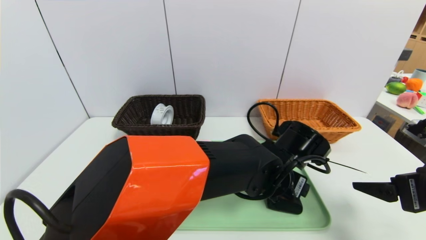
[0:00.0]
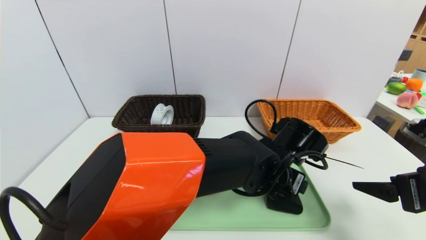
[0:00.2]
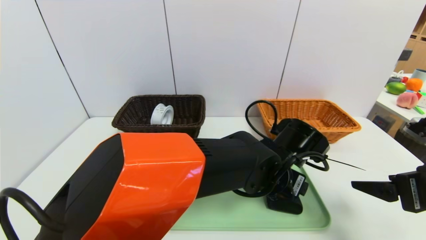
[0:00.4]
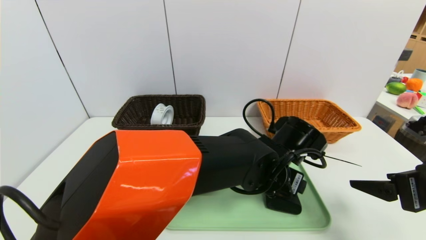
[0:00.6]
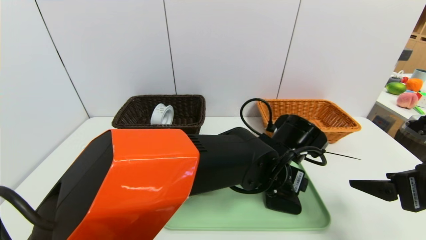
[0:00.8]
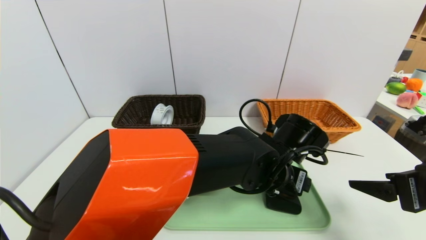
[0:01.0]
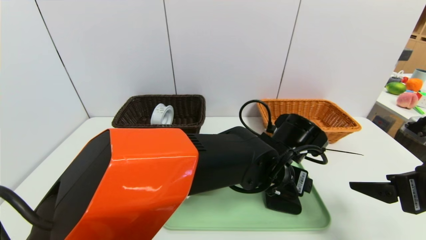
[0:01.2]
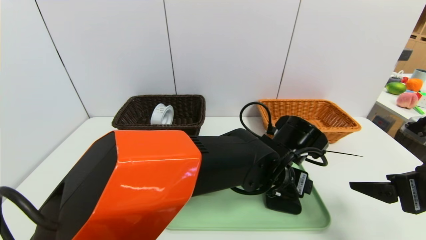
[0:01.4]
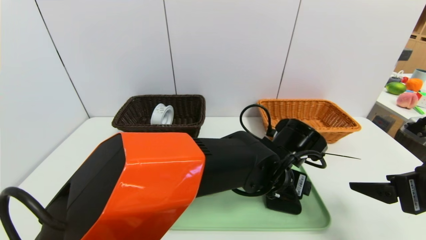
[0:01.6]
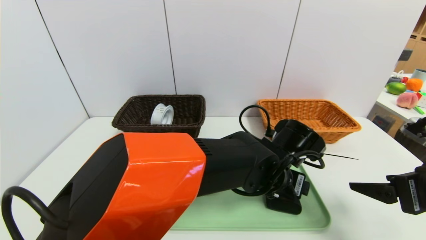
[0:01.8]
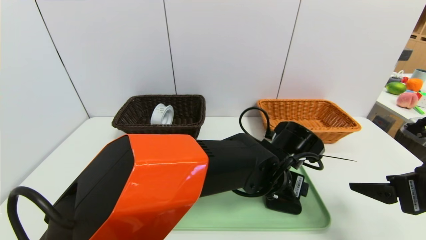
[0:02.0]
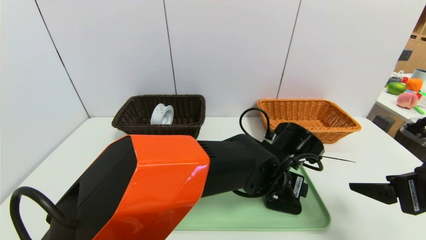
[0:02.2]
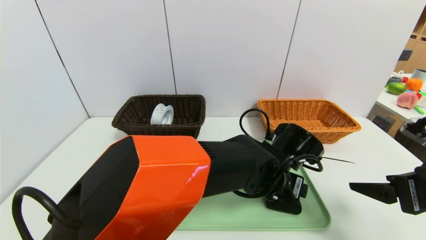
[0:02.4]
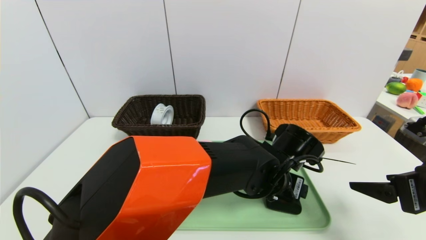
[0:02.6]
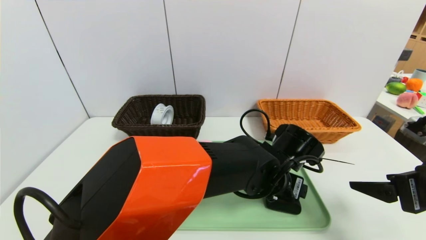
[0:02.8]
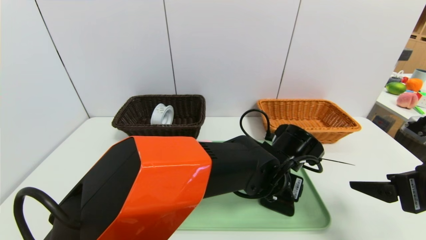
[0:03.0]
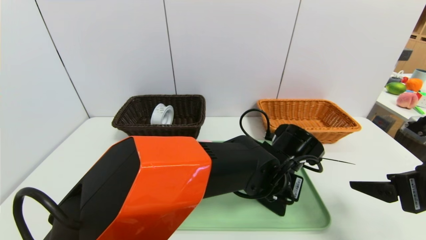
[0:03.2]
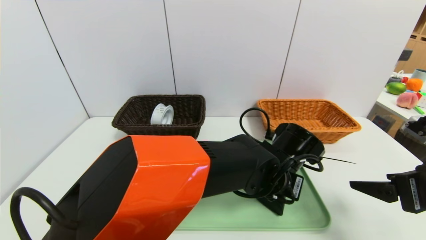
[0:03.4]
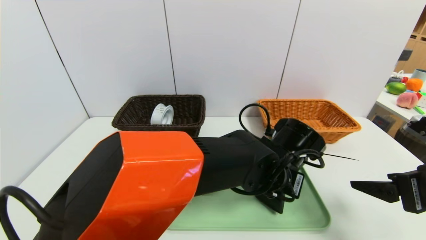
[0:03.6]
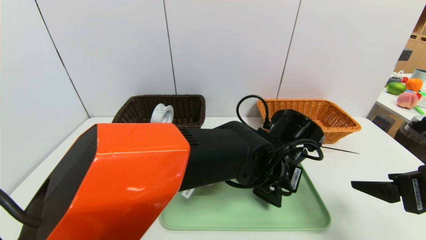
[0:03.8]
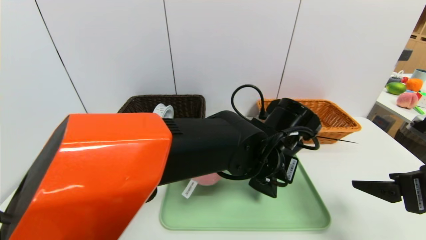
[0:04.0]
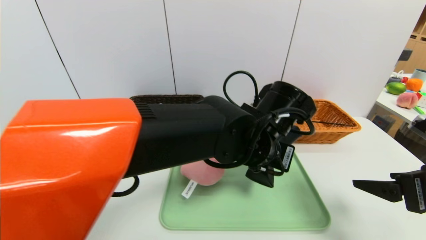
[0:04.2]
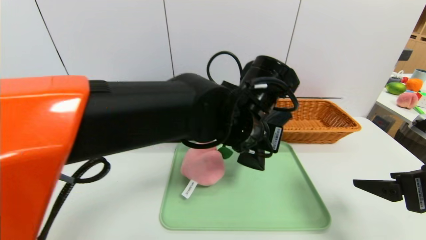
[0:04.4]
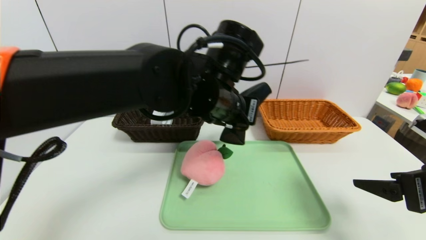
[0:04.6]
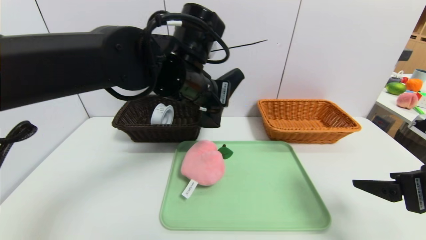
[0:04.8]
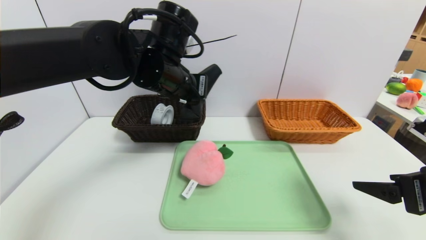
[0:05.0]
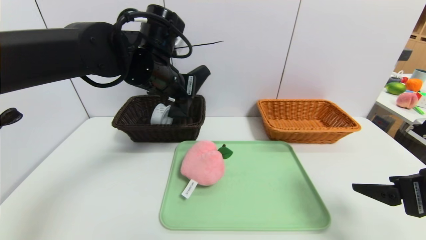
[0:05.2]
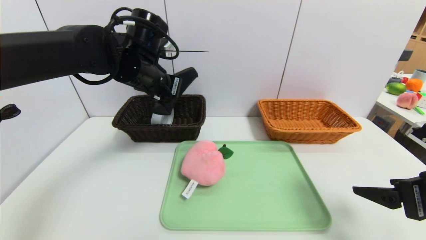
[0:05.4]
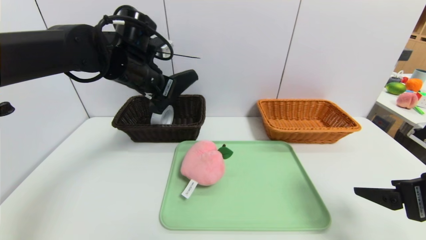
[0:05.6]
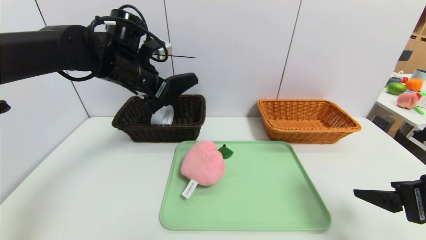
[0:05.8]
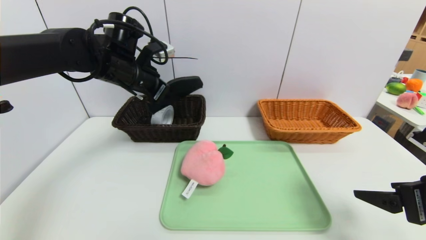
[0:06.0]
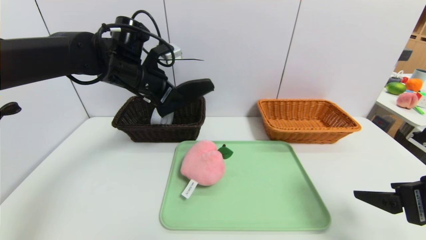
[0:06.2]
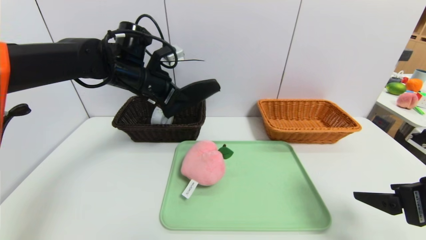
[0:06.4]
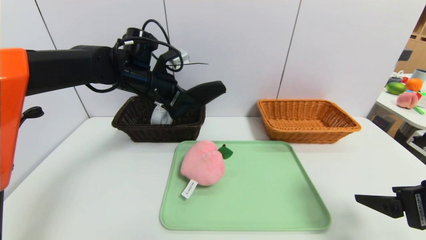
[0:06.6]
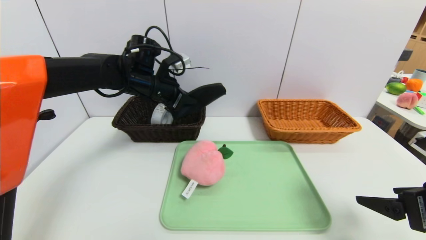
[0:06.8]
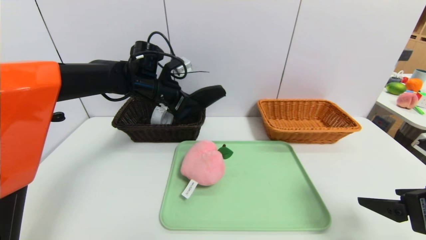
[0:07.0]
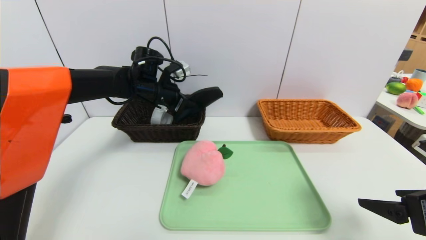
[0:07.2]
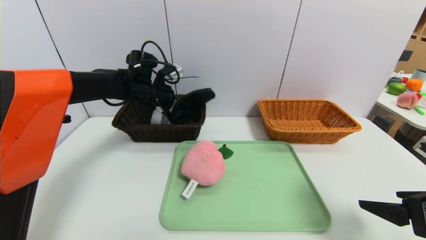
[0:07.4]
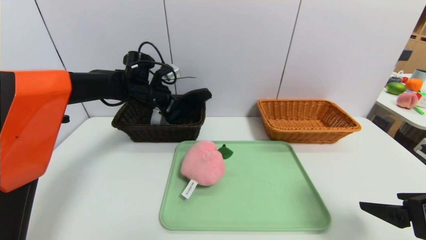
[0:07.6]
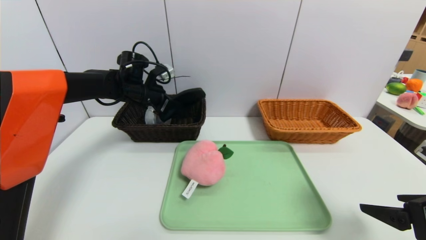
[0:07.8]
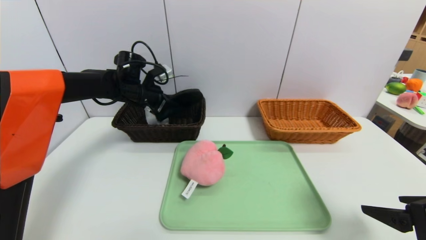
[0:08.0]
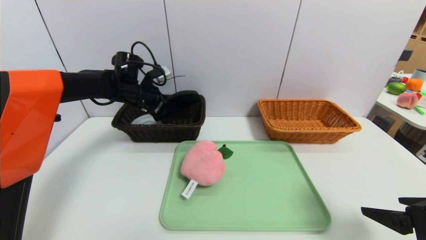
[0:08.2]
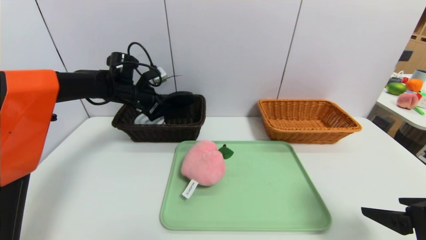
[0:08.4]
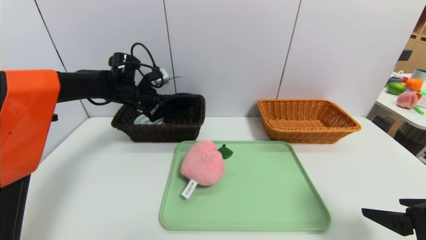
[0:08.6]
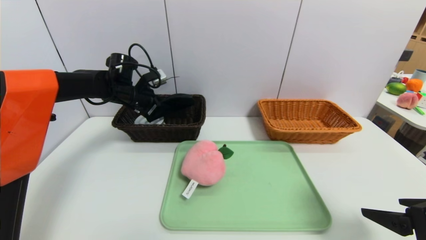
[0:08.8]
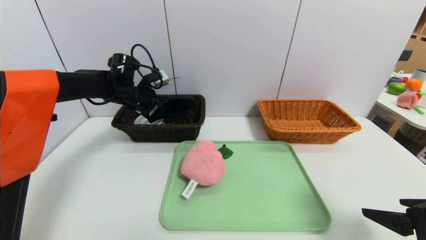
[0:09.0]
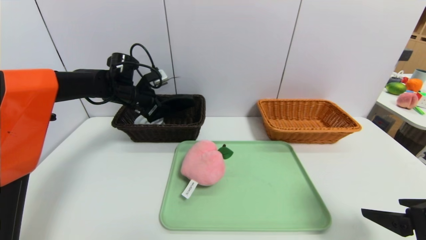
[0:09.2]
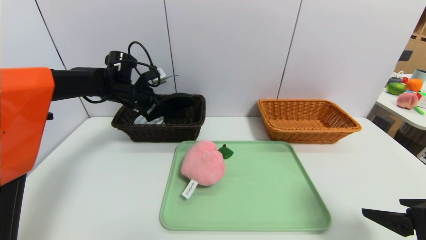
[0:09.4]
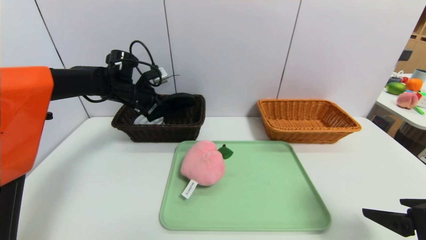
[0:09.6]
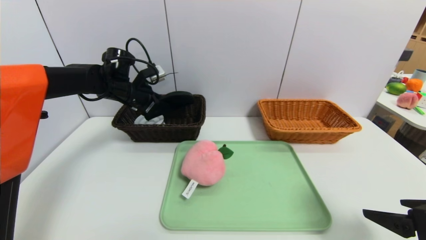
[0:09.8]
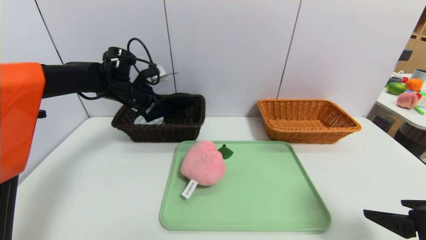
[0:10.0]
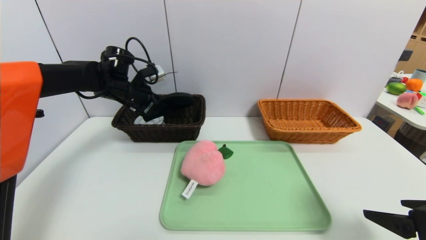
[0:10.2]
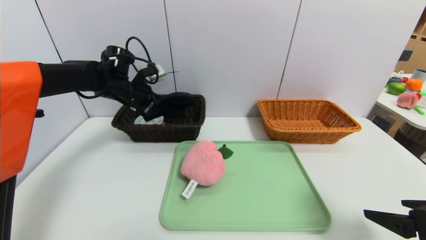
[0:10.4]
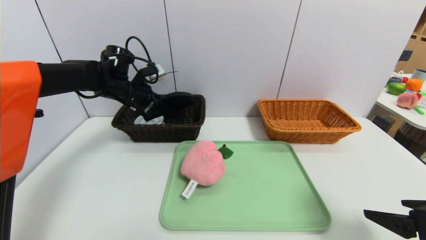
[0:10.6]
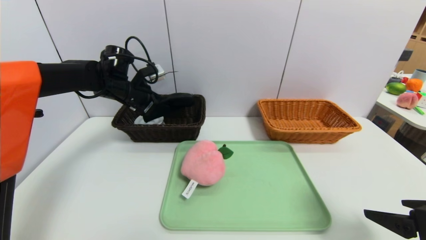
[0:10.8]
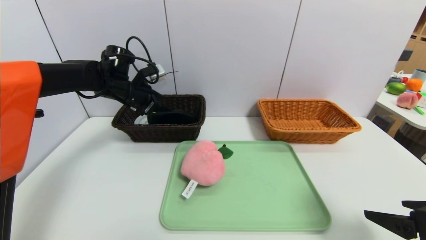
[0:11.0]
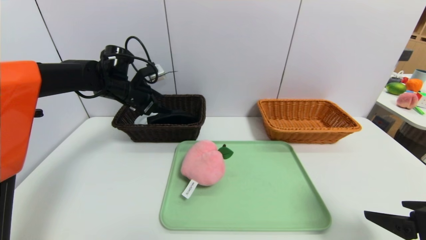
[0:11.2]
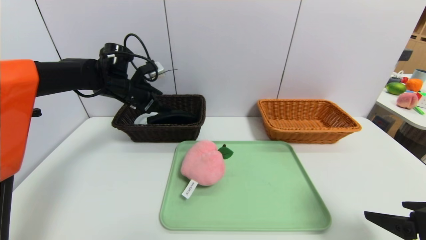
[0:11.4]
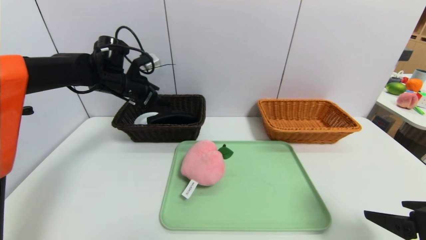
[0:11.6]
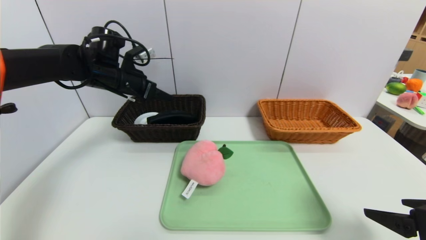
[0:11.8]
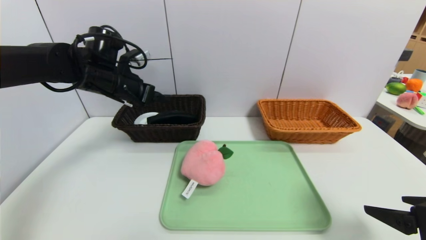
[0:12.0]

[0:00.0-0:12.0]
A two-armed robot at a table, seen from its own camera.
Task of the whole recording: place the food in the right basket with the right gripper, and place the non food items in the left basket with the left gripper.
Step, 0:00.0 to 0:11.6: Grasp the black glass cup and put it in the left basket.
0:00.0 to 0:01.6: There are only small adjustments of the grippers.
0:01.6 to 0:03.0: The two grippers keep their place.
0:03.0 to 0:04.4: The left gripper shifts approximately 15 cm upward and to the left, and closes.
0:04.4 to 0:06.0: The left gripper shifts approximately 25 cm to the left and forward.
0:06.0 to 0:07.6: The left gripper moves forward and downward, some 10 cm.
0:07.6 to 0:10.4: There are only small adjustments of the grippers.
0:10.4 to 0:12.0: The left gripper shifts some 5 cm backward, and opens its fingers.

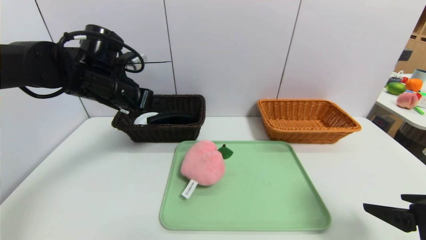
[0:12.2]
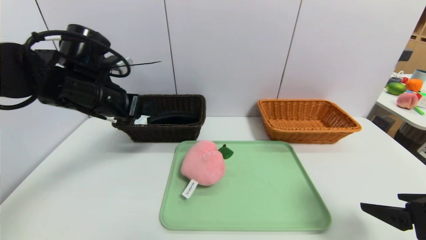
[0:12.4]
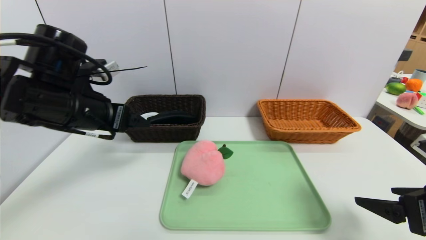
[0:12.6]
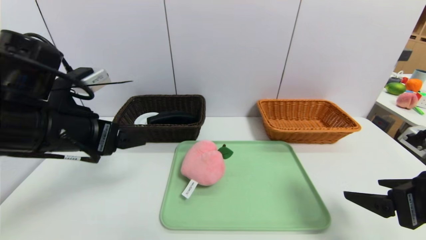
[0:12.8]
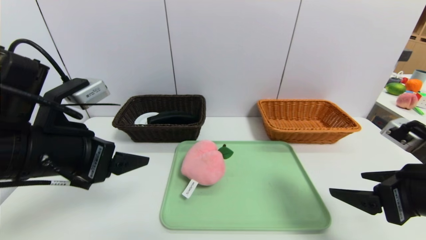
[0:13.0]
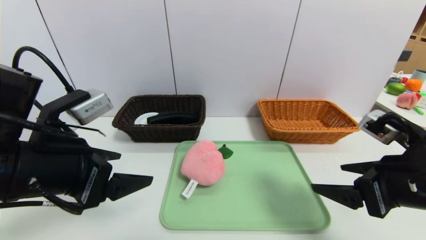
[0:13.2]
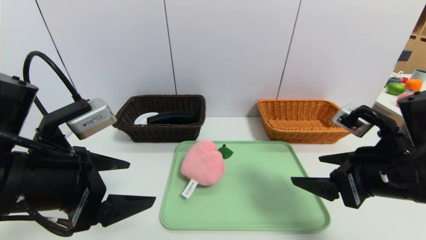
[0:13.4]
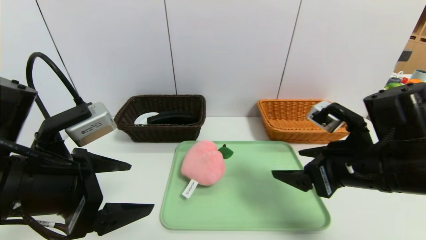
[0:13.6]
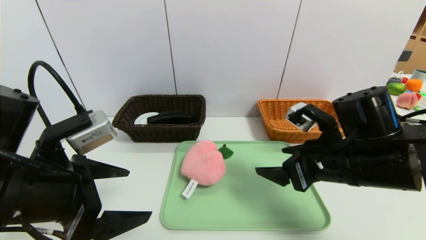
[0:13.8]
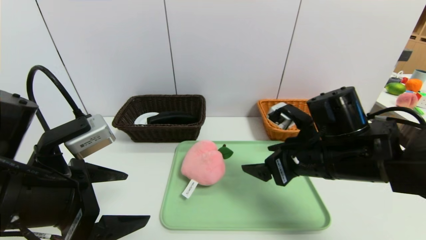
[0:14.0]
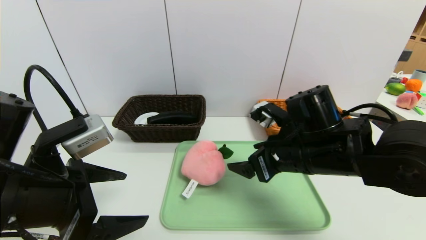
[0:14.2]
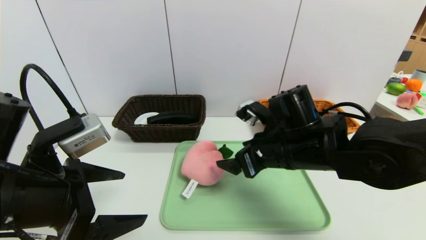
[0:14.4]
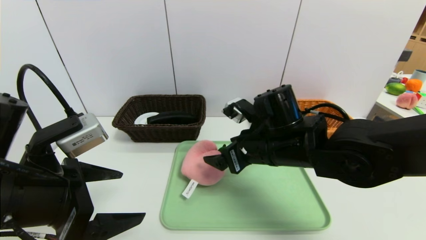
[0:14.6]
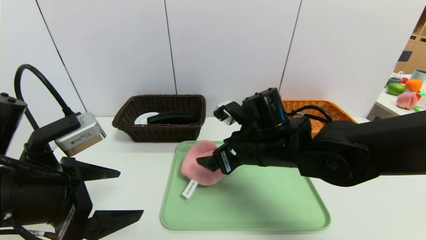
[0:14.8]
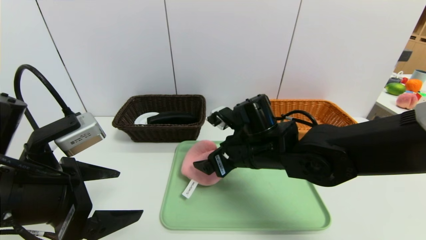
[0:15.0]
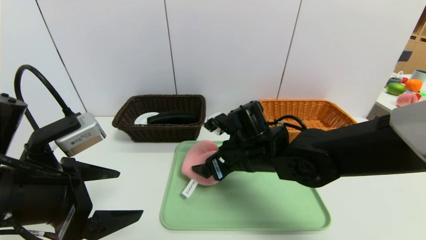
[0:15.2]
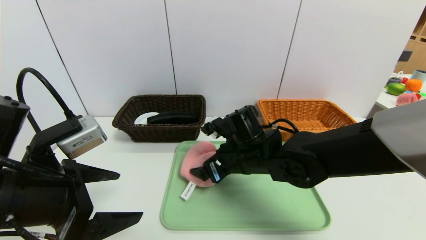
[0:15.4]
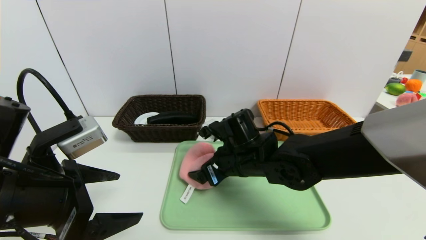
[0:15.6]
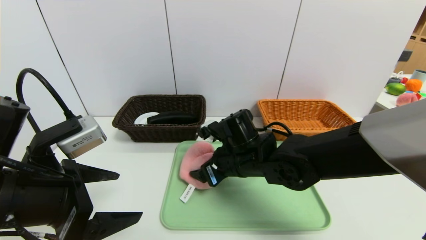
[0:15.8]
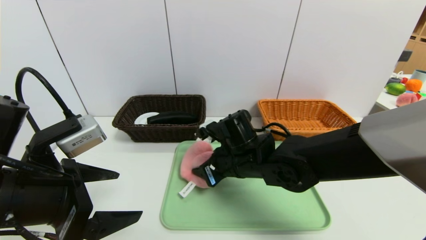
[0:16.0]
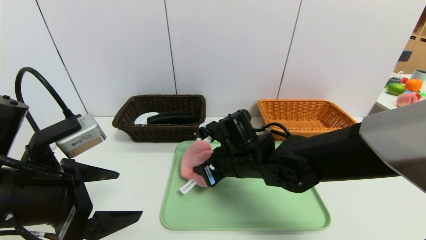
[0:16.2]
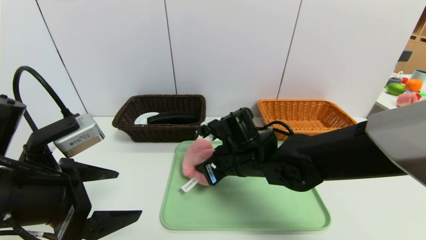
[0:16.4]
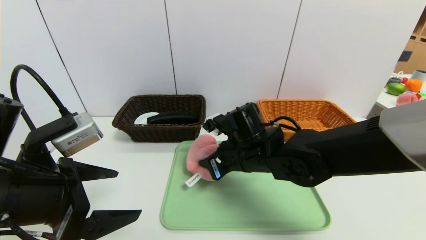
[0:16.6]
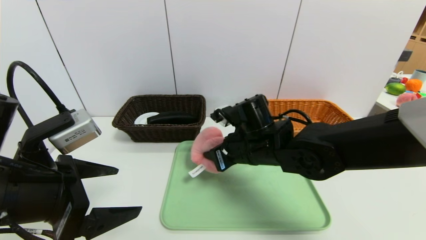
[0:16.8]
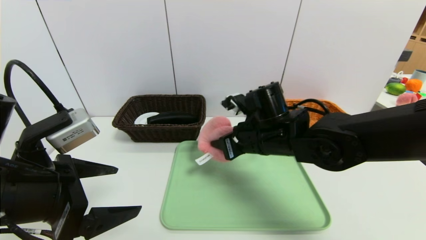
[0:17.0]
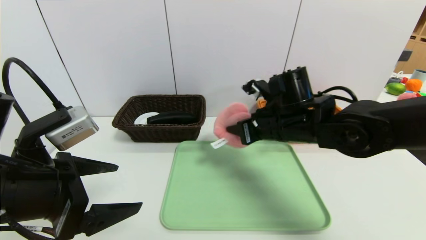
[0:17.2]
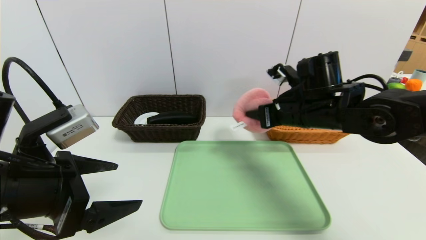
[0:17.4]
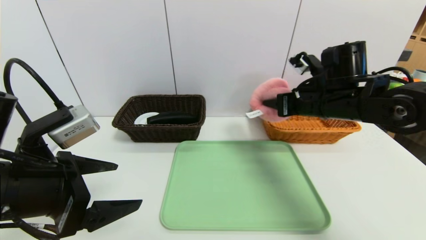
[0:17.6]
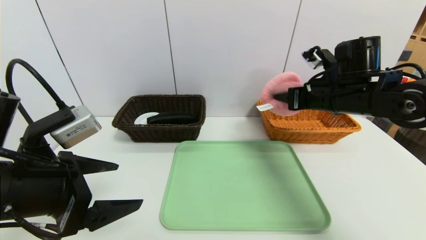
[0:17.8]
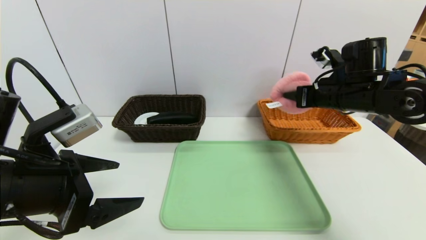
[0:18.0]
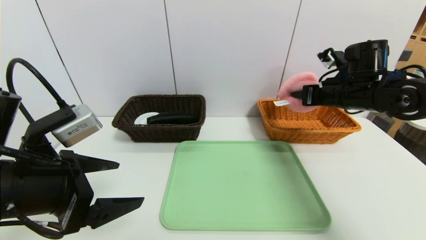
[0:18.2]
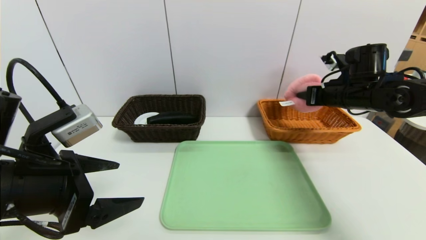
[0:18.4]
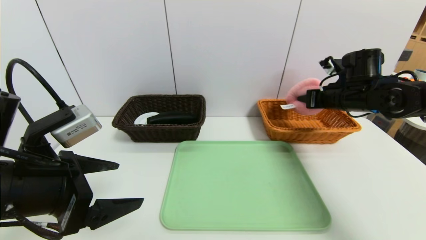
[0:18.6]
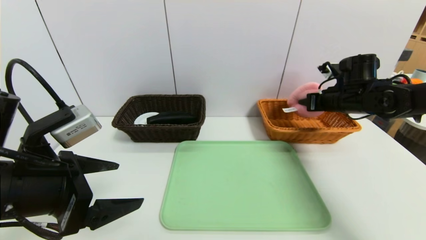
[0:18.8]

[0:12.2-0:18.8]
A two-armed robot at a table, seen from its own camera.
Task of the whole recording: place the food in the right basket with the right gripper, and place the non food items in the left basket with the left gripper.
0:12.2 to 0:13.8: The left gripper travels backward by roughly 20 cm. The right gripper shifts roughly 15 cm to the left and forward.
0:13.8 to 0:15.4: The right gripper travels to the left, forward and downward by roughly 15 cm.
0:15.4 to 0:17.2: The right gripper travels to the right and upward by approximately 10 cm, and closes.
0:17.2 to 0:18.8: The right gripper goes about 20 cm to the right and forward.
